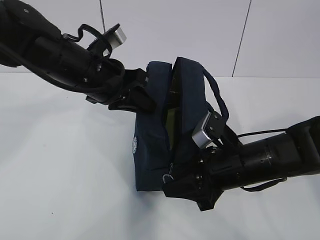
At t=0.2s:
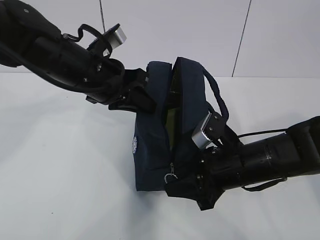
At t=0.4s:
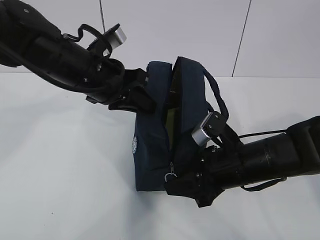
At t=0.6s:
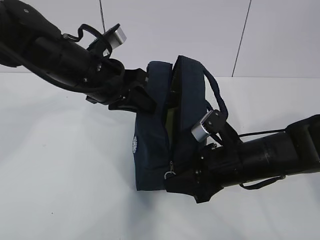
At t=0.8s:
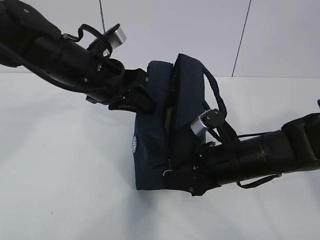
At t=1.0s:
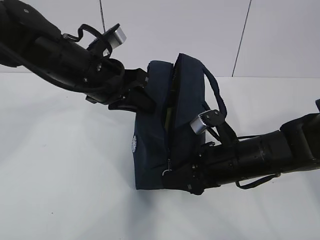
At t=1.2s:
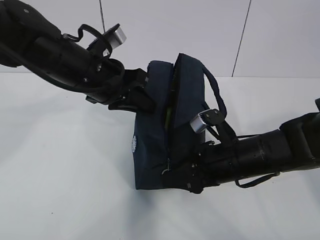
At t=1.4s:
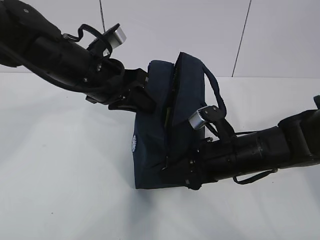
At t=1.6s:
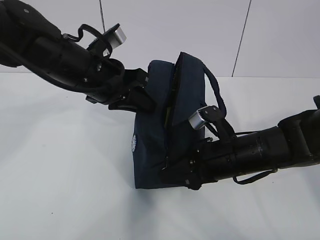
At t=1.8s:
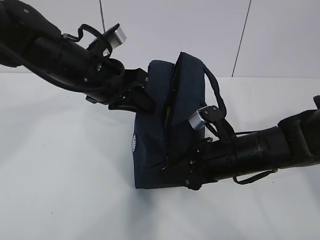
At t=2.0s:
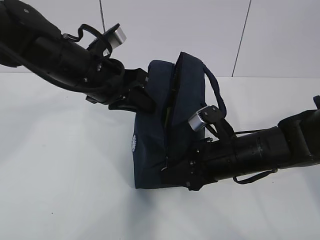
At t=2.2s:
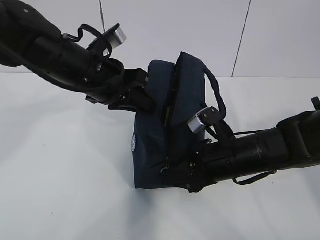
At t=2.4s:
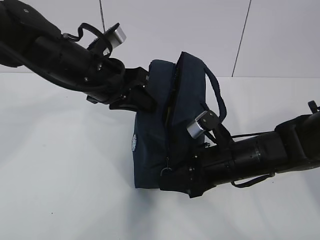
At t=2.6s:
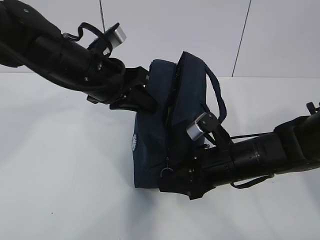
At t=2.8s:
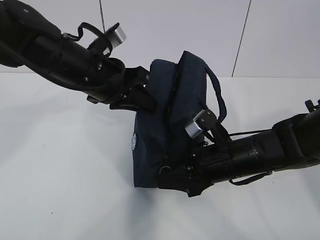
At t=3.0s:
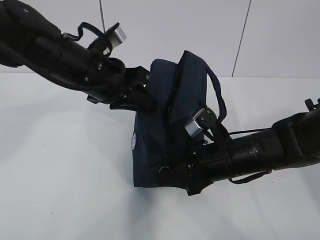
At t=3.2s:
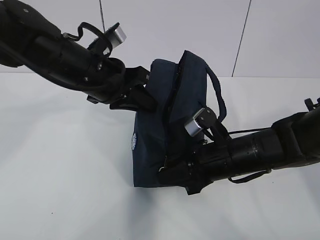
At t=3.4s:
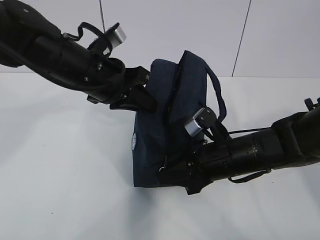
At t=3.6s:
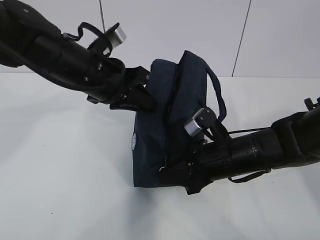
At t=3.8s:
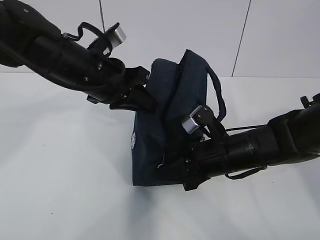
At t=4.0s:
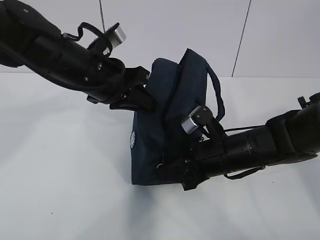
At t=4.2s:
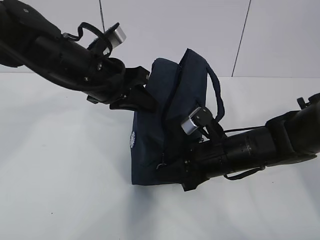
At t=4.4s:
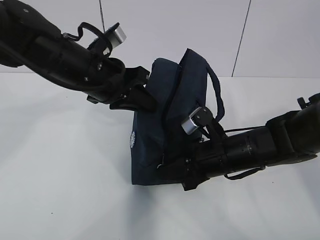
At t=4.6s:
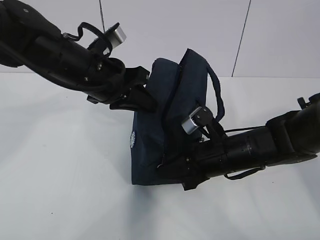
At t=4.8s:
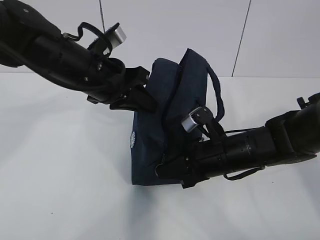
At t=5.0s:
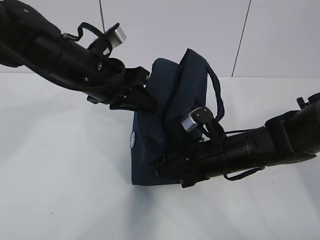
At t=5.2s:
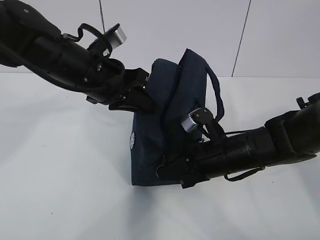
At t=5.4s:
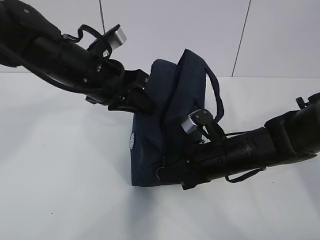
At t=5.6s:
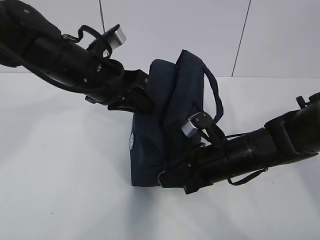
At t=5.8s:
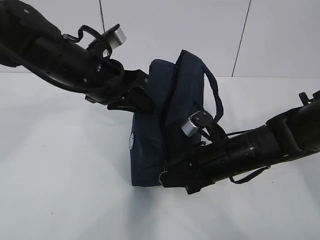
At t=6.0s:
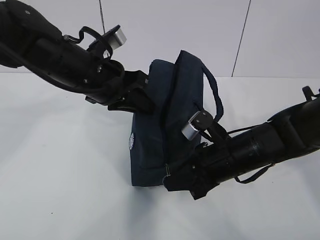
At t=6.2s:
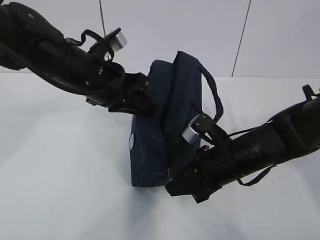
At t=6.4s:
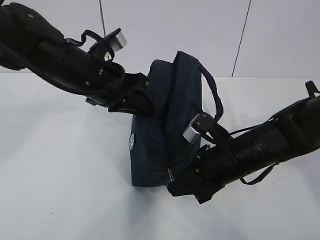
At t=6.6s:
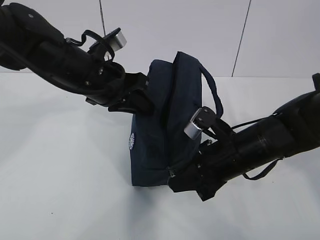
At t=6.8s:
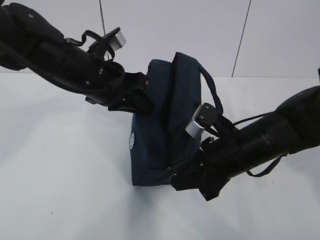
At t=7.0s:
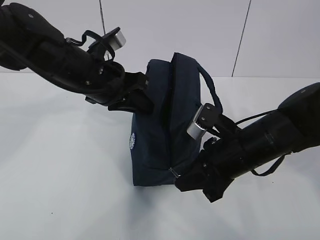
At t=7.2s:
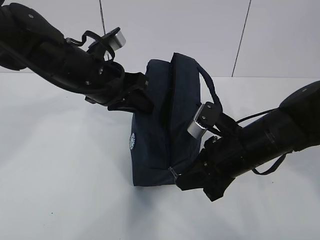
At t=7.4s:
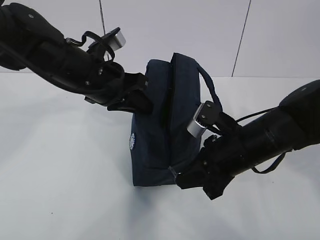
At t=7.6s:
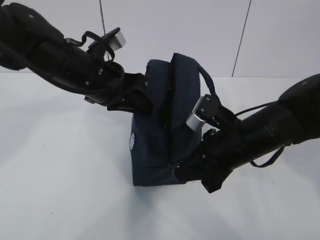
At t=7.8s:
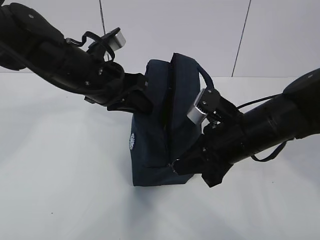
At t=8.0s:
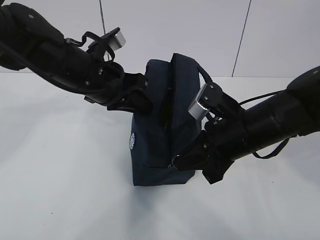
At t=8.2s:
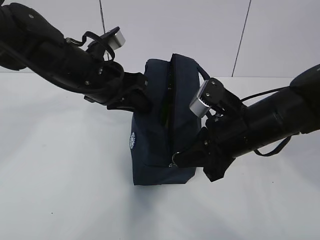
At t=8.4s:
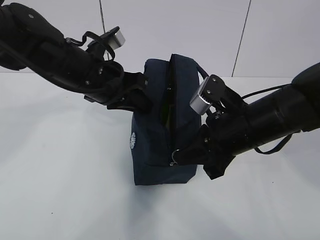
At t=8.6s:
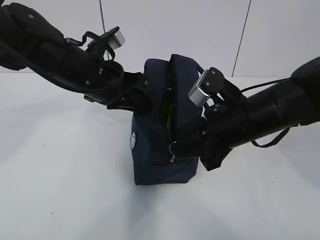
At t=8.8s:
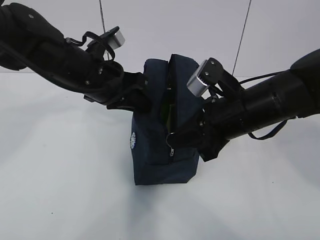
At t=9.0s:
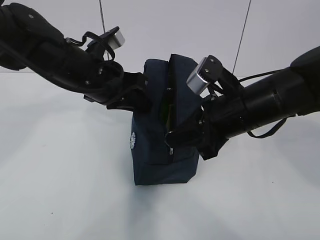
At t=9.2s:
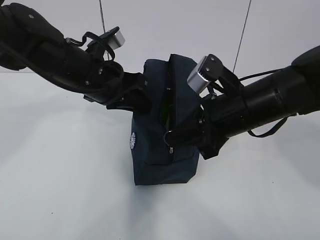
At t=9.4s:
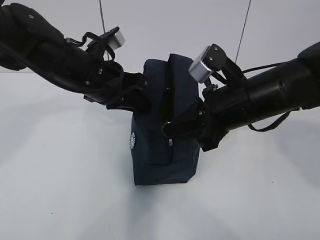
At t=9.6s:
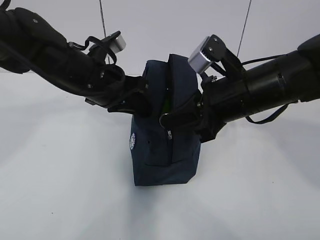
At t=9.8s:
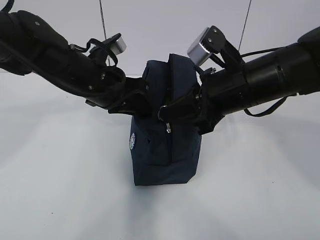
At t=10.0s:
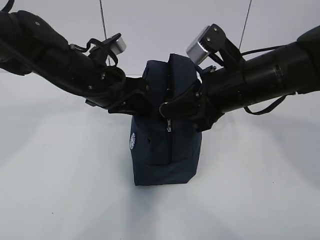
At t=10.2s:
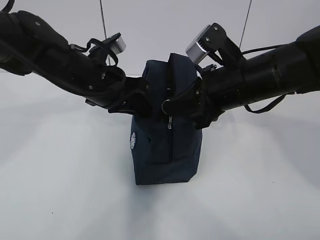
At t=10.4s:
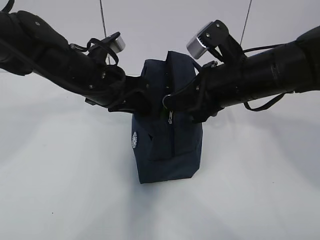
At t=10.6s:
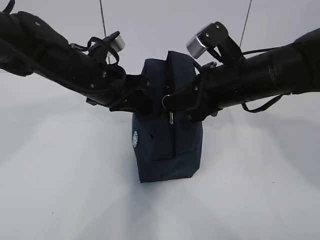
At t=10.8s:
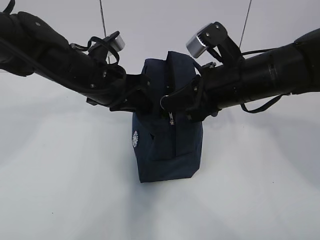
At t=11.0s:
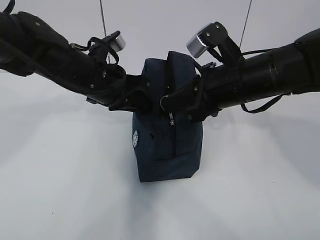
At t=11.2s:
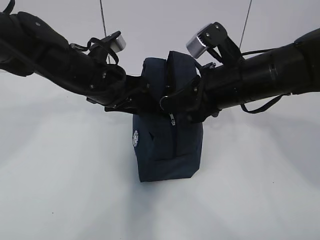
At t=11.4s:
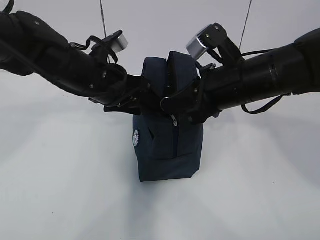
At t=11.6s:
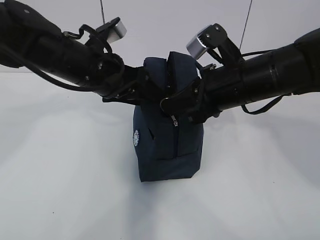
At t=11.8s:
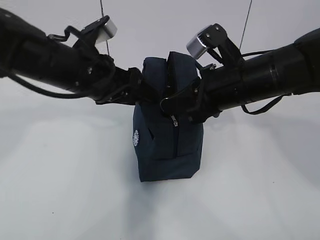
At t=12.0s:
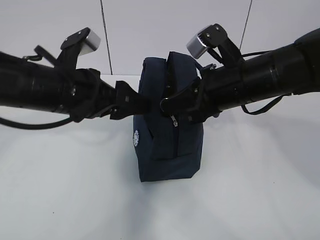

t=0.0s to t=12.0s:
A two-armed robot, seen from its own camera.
Step, t=0.0s to t=12.0s: Grab the lunch bag with your left hand.
t=0.0s to t=3.0s: The grippers make only small movements.
t=3.0s to t=4.4s: Both grippers stay about where they are.
t=4.4s to t=7.6s: The grippers stay close to where they were, moving slightly.
t=7.6s to t=9.0s: The right gripper moves upward, about 5 cm.
t=9.0s to t=10.4s: The grippers make only small movements.
t=10.4s to t=12.0s: The left gripper goes approximately 5 cm backward, and opens.

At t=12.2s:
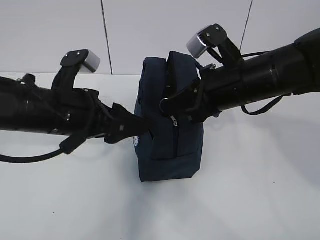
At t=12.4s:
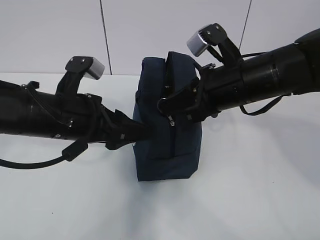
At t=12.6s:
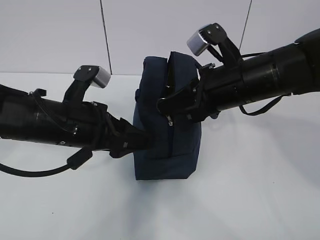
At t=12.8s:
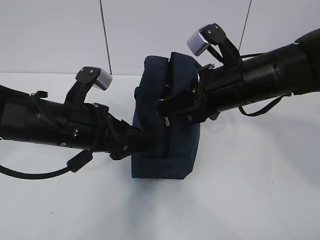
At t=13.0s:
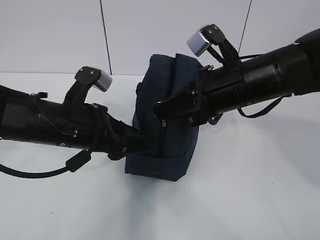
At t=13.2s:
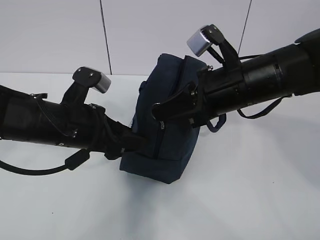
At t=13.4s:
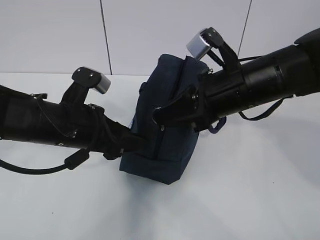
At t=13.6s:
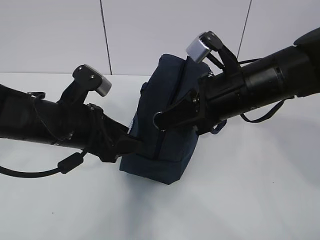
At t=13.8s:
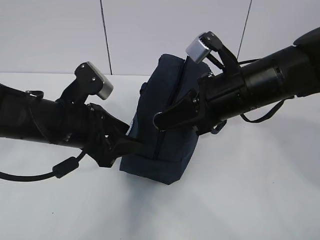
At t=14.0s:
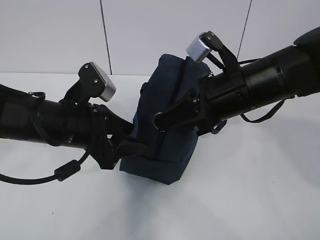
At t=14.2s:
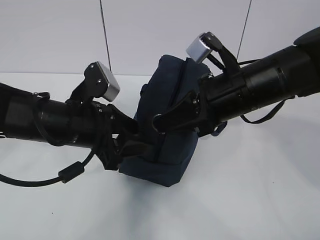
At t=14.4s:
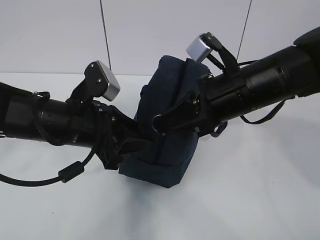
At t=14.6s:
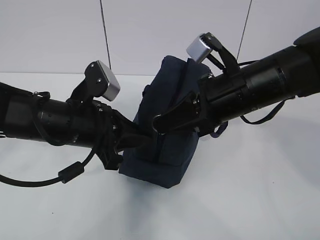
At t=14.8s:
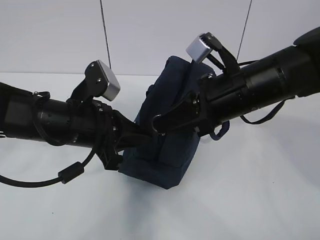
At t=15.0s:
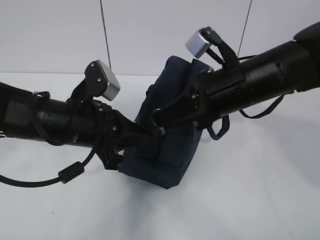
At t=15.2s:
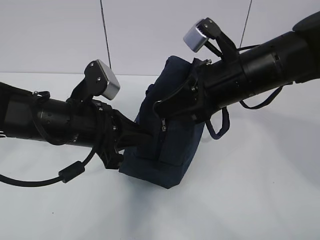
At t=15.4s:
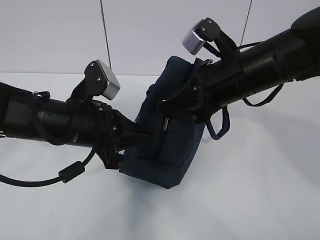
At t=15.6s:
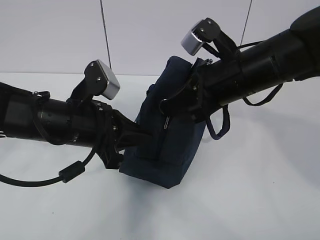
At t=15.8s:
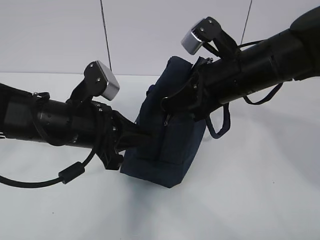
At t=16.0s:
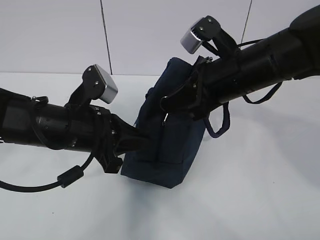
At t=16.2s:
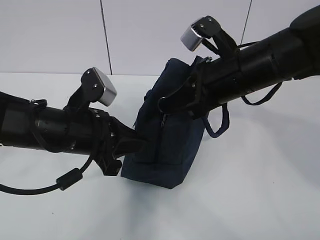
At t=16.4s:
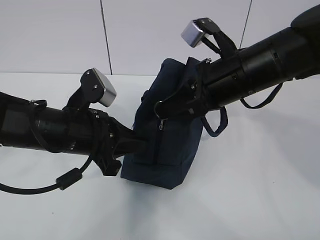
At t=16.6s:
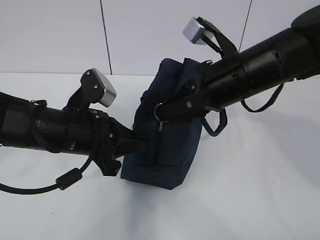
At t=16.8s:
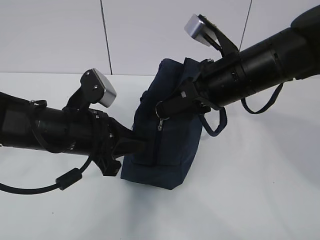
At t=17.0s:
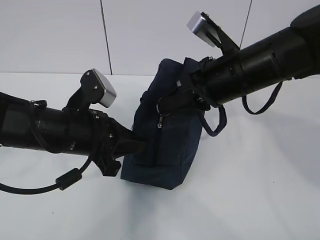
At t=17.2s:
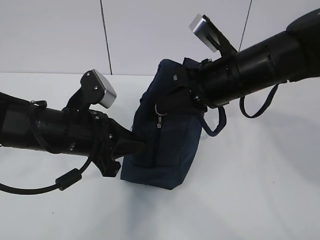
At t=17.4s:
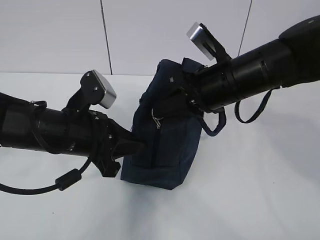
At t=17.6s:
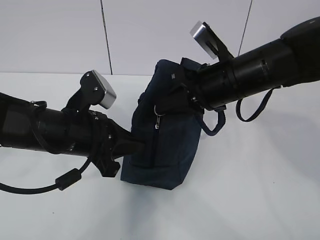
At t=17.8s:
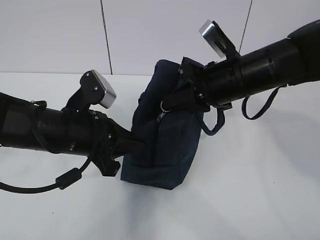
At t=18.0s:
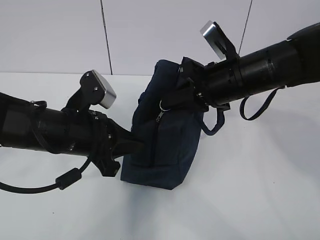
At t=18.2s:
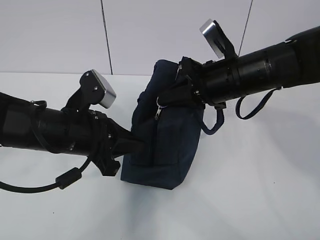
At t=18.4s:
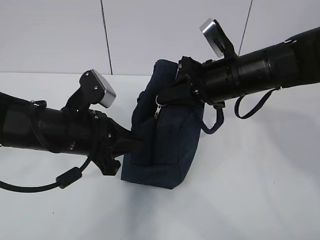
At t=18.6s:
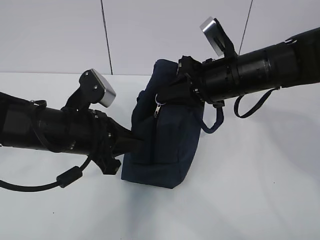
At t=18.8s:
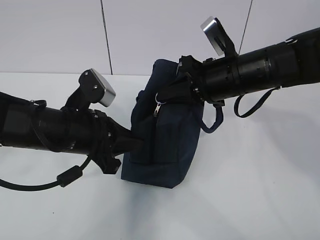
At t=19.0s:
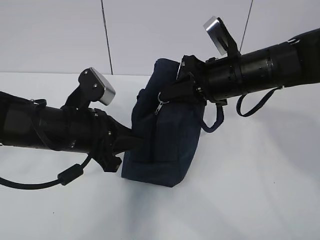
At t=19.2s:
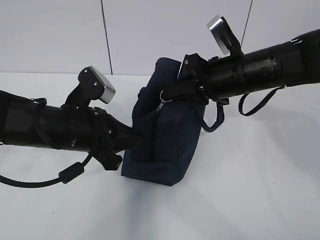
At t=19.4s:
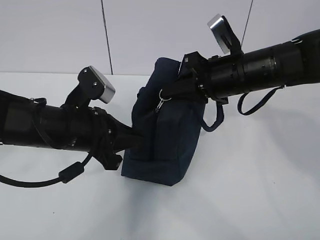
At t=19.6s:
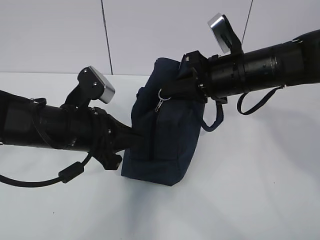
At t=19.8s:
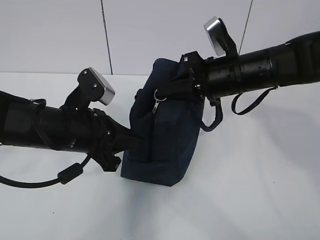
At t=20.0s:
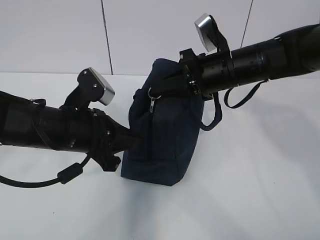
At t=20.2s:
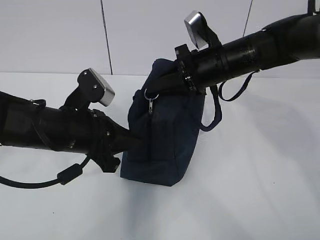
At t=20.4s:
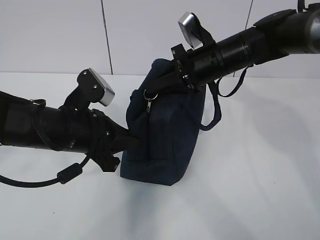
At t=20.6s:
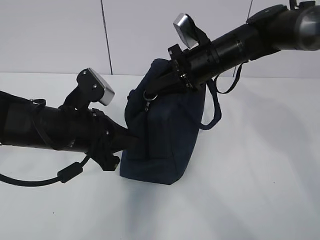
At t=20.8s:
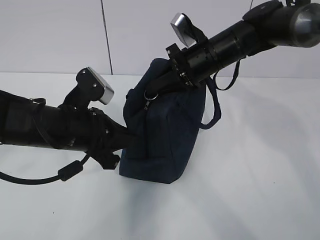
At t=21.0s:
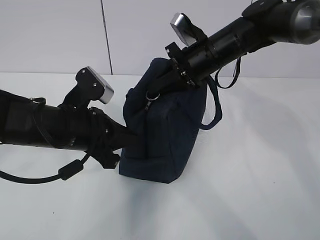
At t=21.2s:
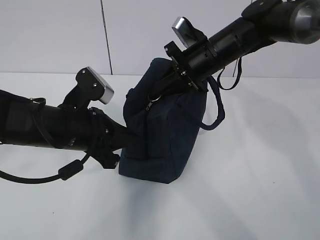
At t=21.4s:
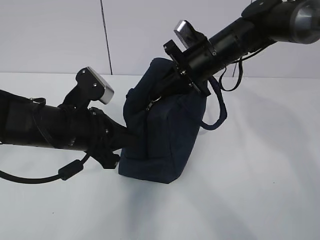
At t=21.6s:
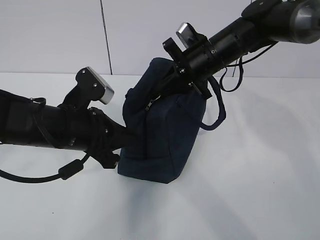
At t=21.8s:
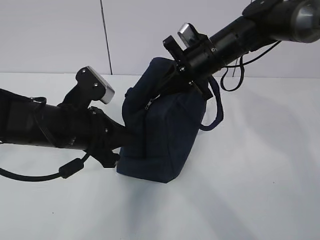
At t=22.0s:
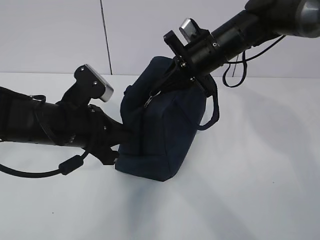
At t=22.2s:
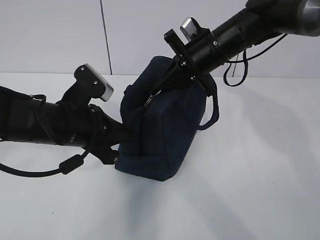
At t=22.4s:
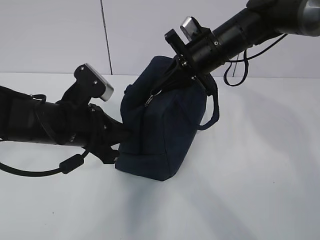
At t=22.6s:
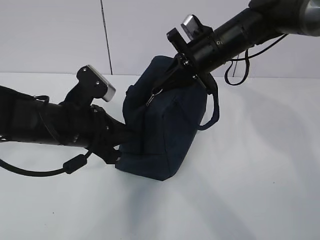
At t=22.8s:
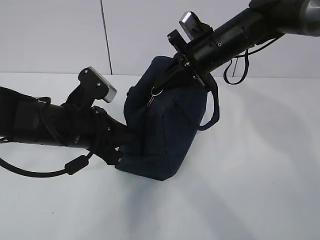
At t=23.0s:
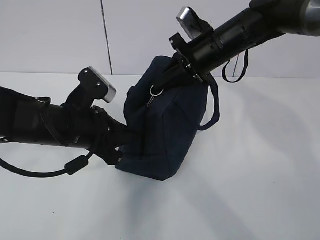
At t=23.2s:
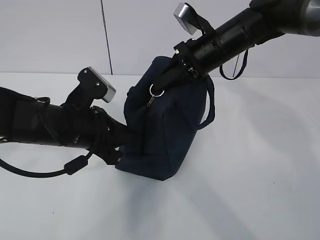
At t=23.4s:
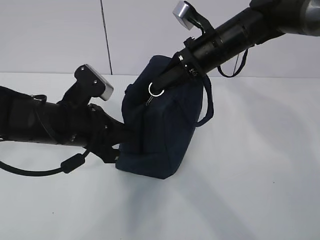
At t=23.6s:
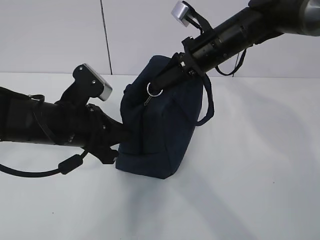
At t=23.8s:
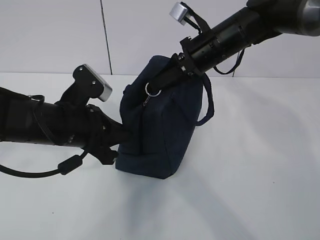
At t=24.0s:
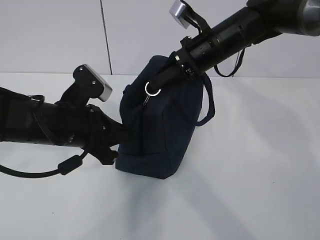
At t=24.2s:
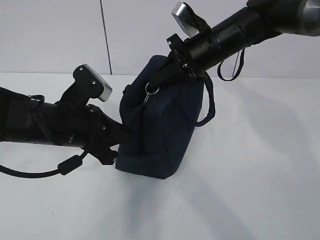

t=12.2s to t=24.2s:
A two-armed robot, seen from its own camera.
Step, t=12.2s to t=17.2s: Pull the zipper with your right hand.
t=13.8s to t=15.2s: The left gripper closes up.
t=15.2s to t=16.6s: The grippers make only small movements.
t=18.2s to t=19.8s: The grippers stay close to where they were, moving slightly.
t=19.8s to t=21.2s: The right gripper travels forward by approximately 5 cm.
